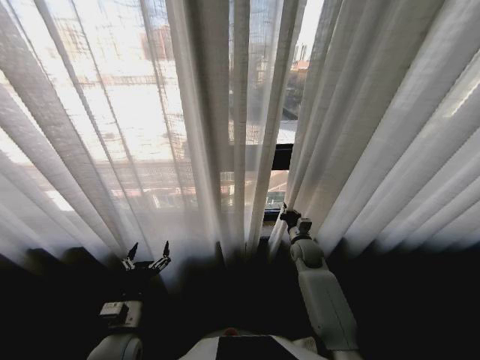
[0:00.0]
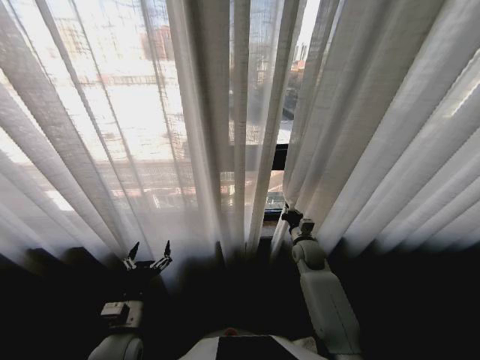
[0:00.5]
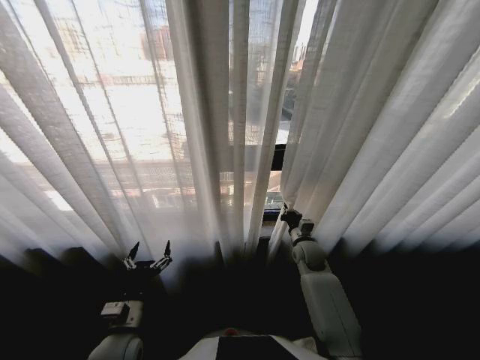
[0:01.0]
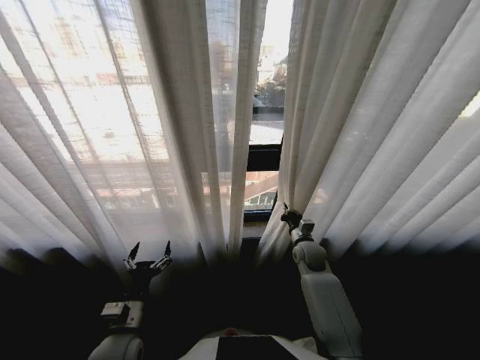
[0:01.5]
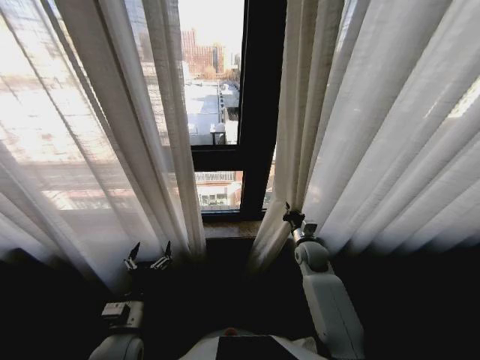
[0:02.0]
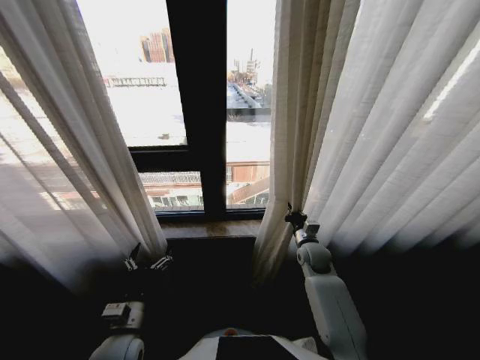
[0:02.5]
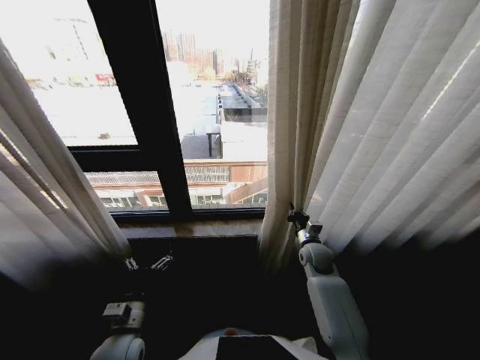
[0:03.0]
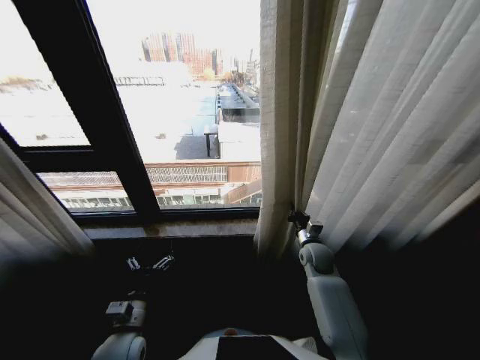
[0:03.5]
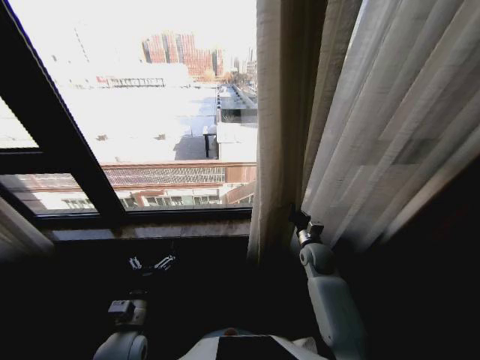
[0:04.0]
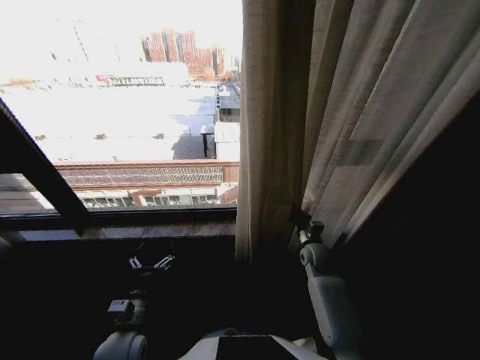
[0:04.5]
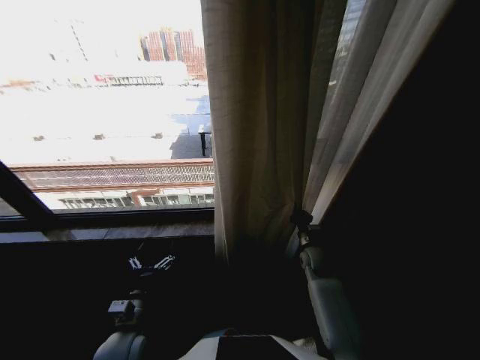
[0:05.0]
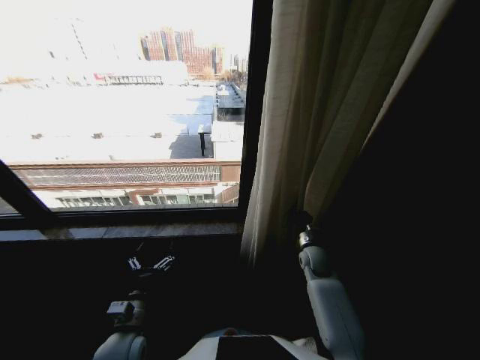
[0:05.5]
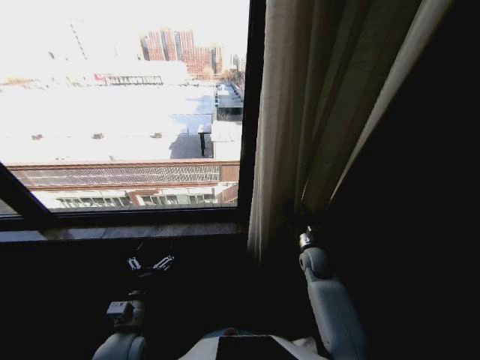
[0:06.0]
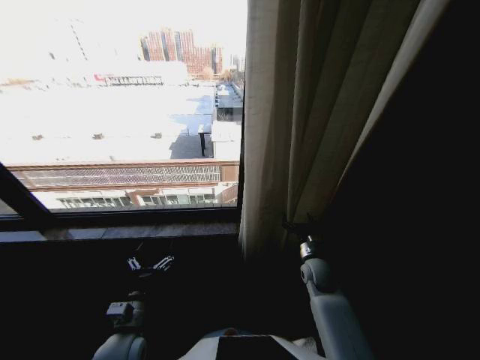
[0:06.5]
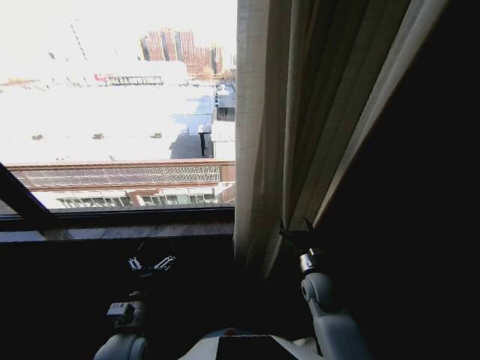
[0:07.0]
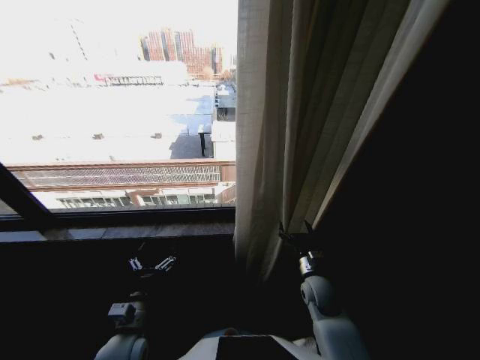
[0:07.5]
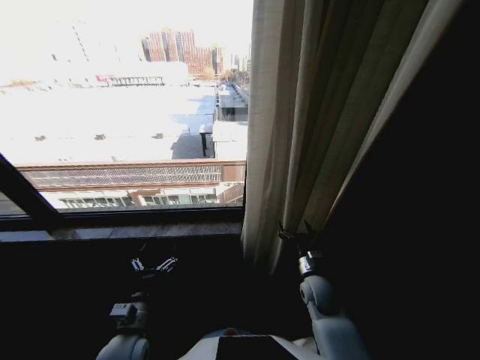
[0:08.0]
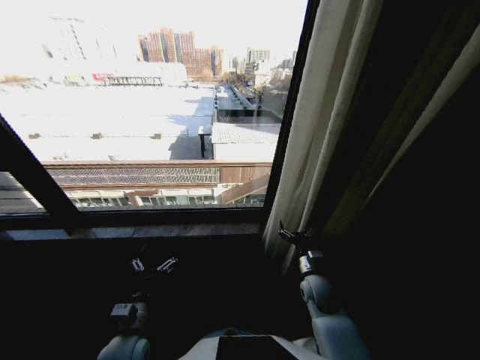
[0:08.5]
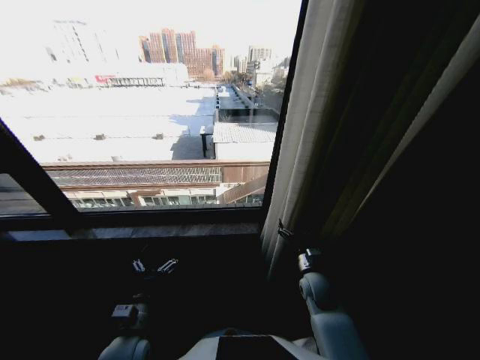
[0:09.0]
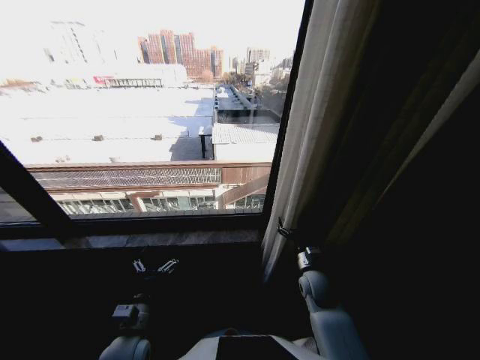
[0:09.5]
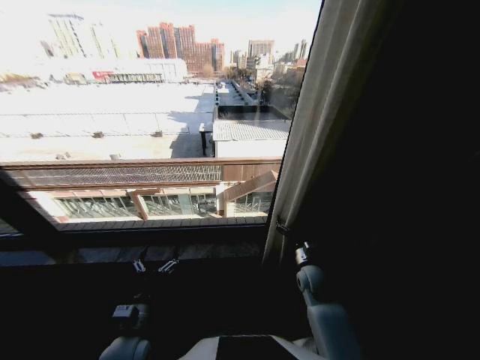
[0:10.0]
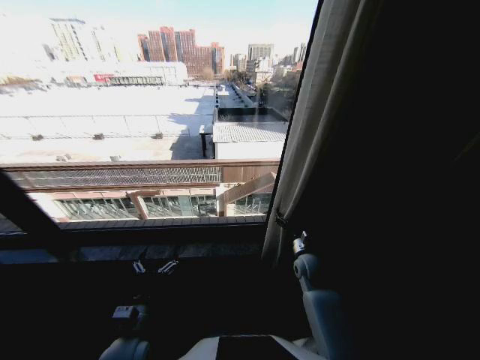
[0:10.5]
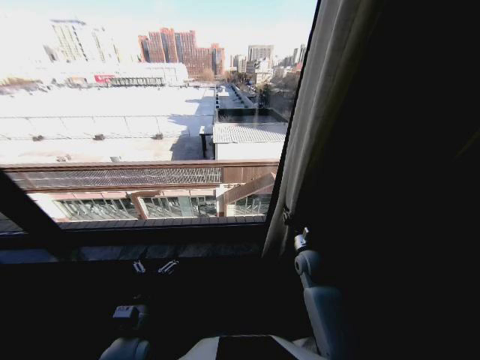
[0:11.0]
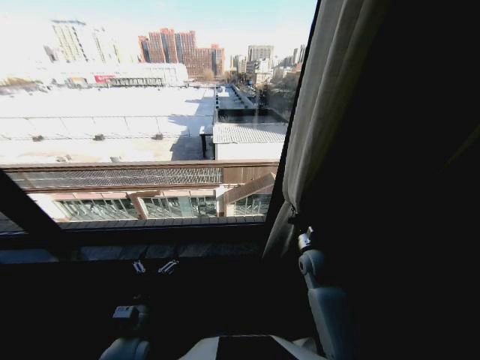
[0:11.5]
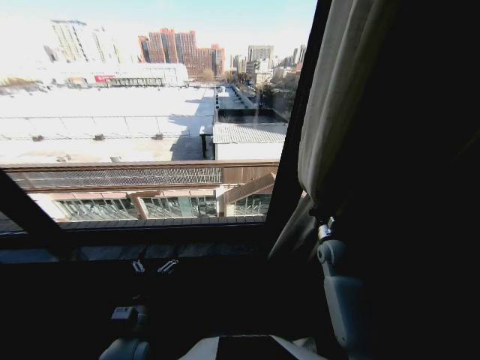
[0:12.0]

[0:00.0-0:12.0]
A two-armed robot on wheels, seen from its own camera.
Task of the whole recording: Open the curtains by pulling them apart, changing their state from closed to fully open.
0:04.0 to 0:06.0: The right gripper opens its fingers.
0:06.0 to 0:08.0: The right gripper travels backward by about 10 cm, and opens its fingers.
0:10.0 to 0:12.0: The right gripper travels to the right, forward and upward by about 10 cm, and closes.

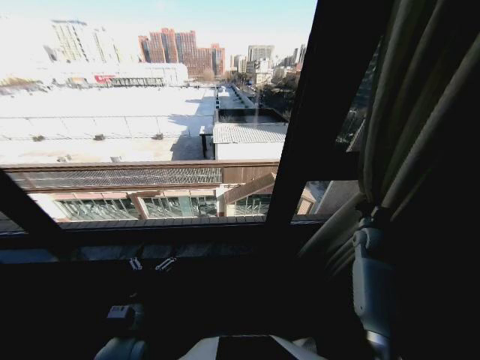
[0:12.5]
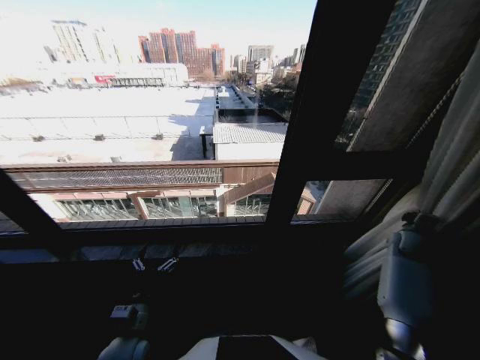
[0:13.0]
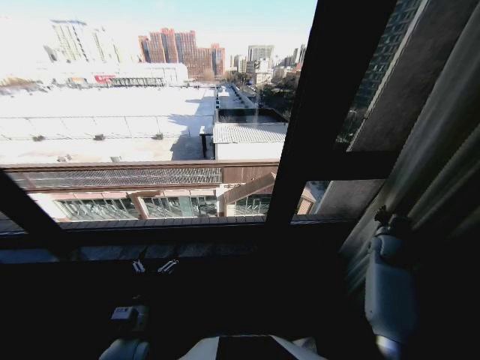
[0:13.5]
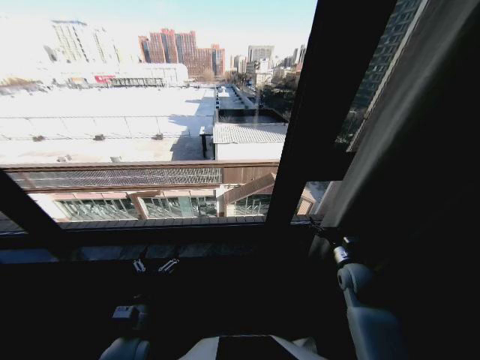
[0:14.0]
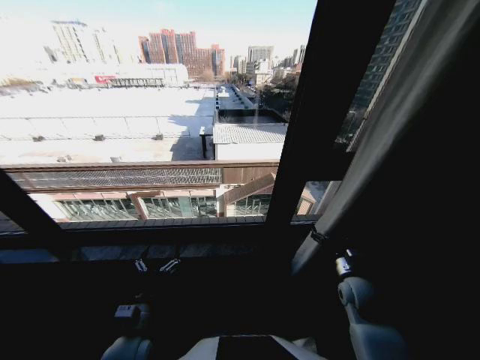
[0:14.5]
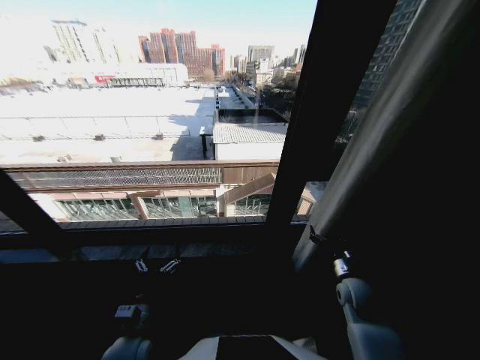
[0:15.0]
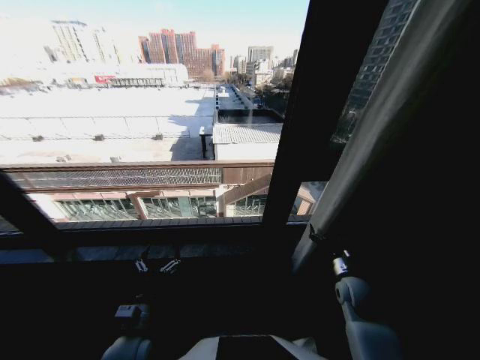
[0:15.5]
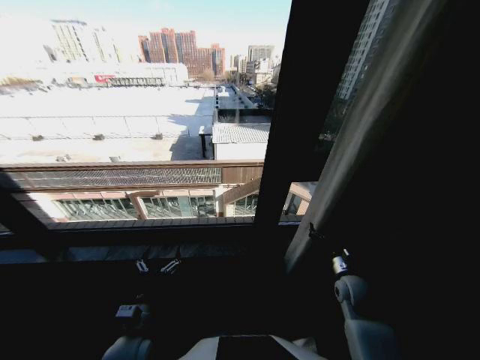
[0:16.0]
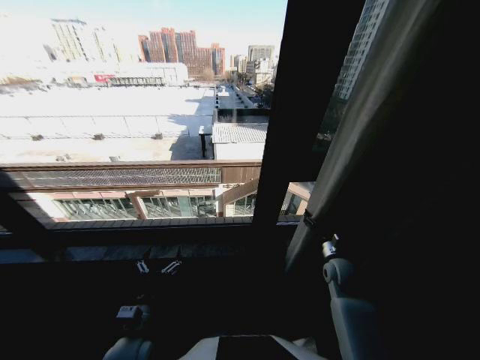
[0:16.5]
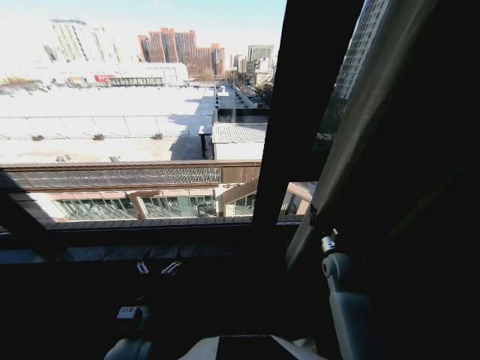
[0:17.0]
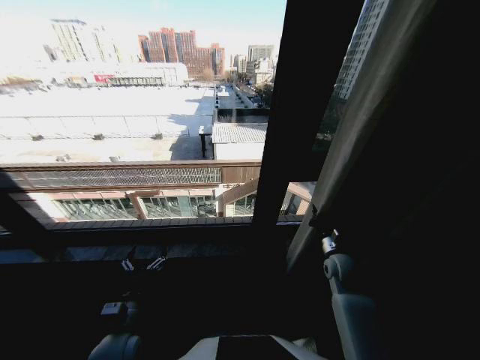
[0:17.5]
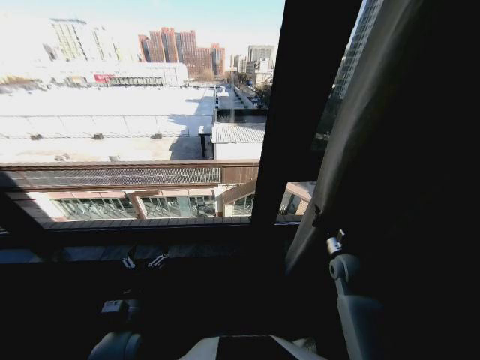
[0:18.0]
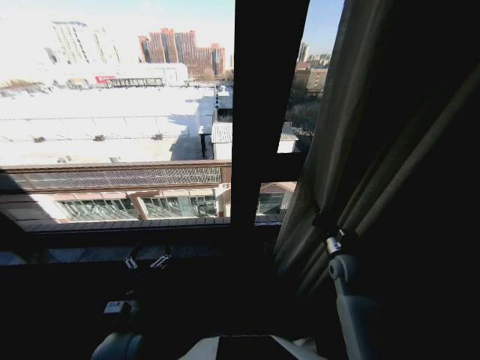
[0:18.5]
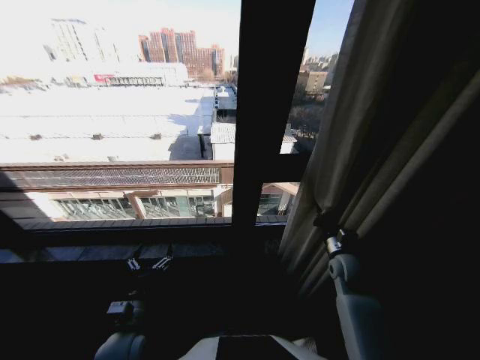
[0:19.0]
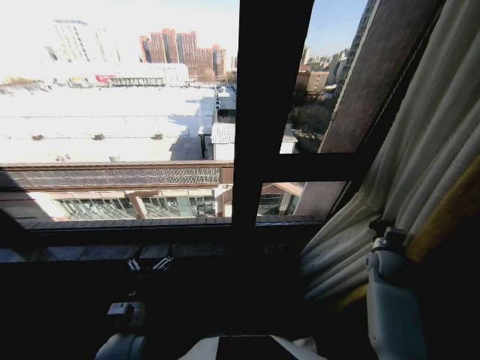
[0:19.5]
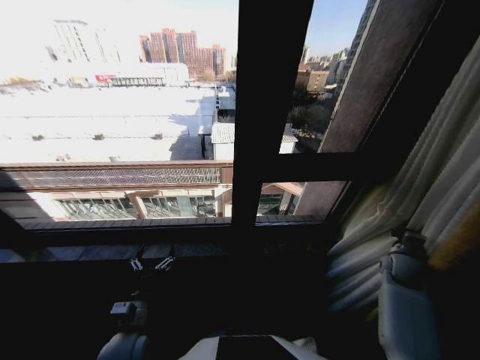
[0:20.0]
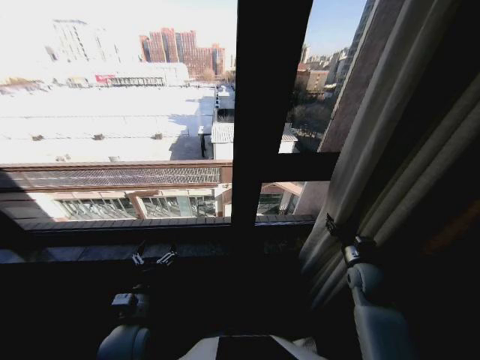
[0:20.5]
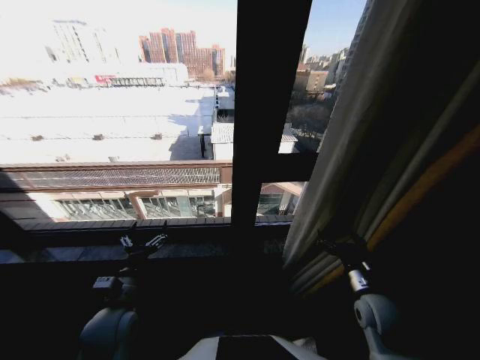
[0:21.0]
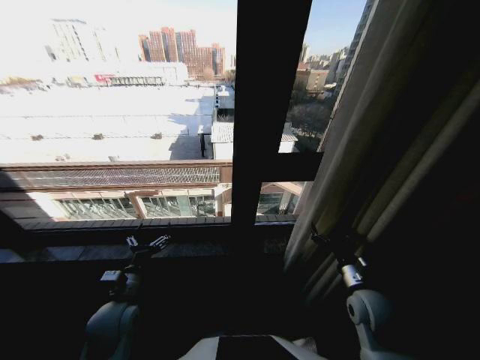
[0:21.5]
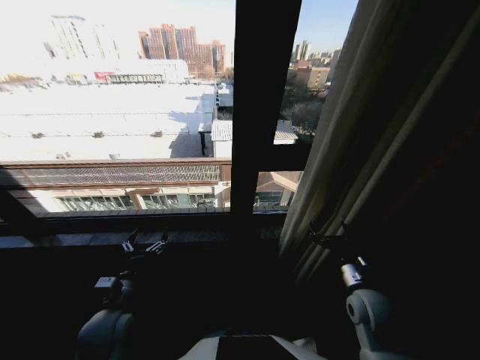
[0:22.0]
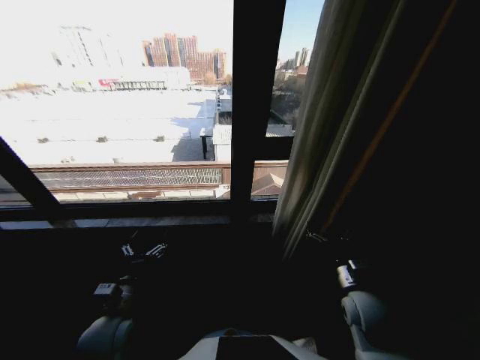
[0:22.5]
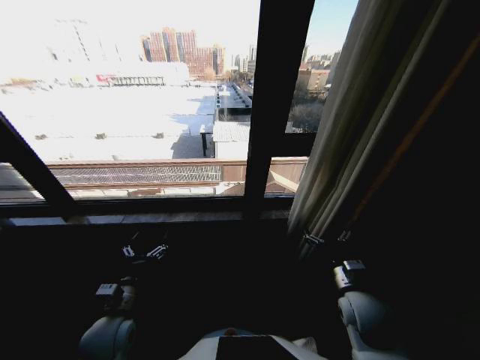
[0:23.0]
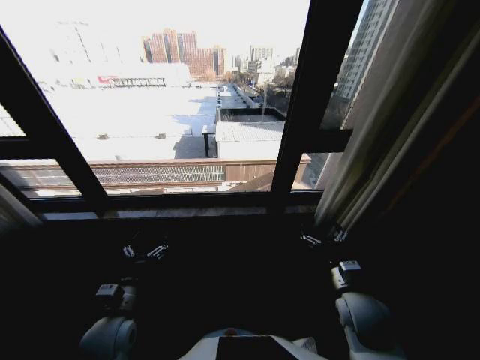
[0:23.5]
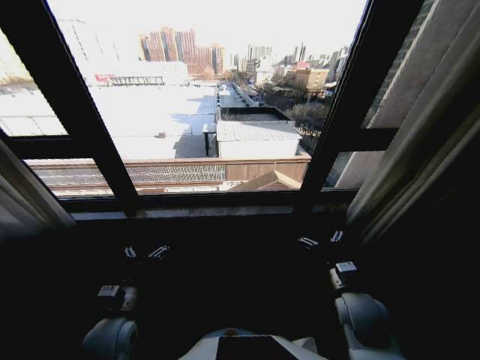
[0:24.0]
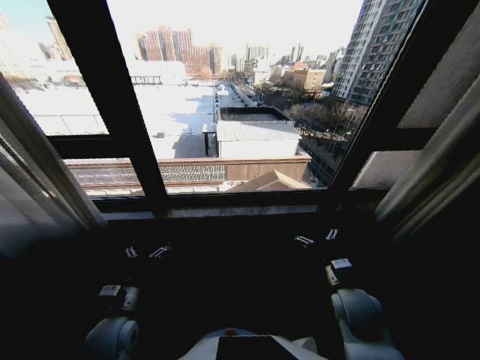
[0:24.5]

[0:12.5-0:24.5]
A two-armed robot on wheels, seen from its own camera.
Task of the whole recording: Open the curtains by pulling them apart, changing their state from closed to fully open.
0:12.5 to 0:14.5: The right gripper travels backward and to the left by about 20 cm, and opens.
0:14.5 to 0:16.5: The right gripper is displaced forward by about 5 cm.
0:16.5 to 0:18.5: The right gripper closes up.
0:18.5 to 0:20.5: The right gripper goes to the right and returns, approximately 20 cm each way, and opens its fingers.
0:20.5 to 0:22.5: The right gripper is displaced backward and to the left by some 10 cm, and opens.

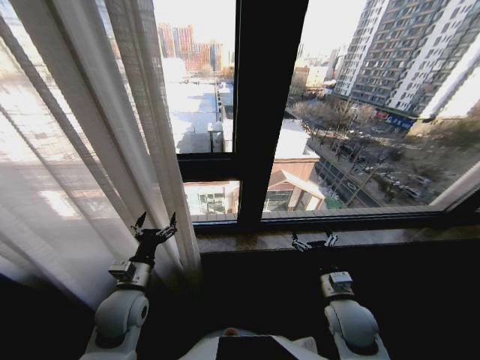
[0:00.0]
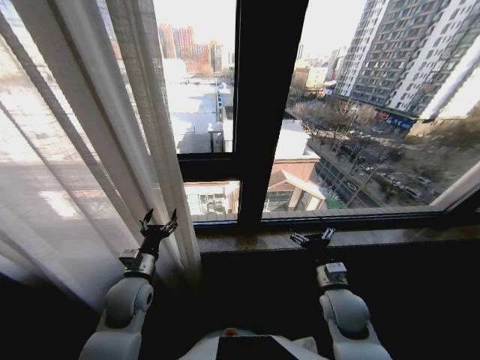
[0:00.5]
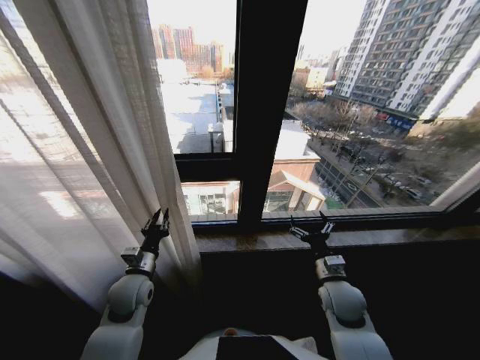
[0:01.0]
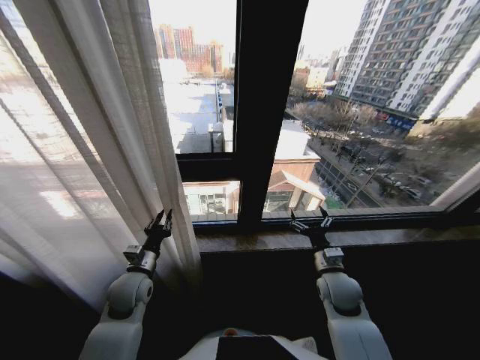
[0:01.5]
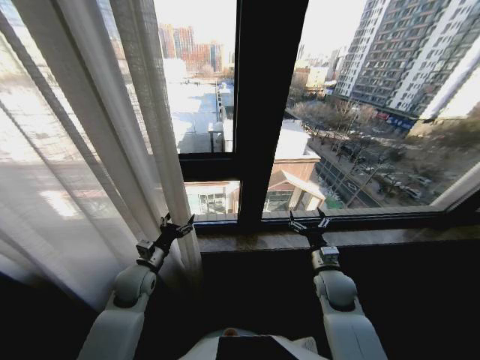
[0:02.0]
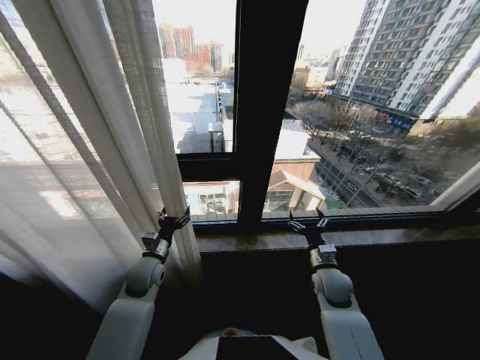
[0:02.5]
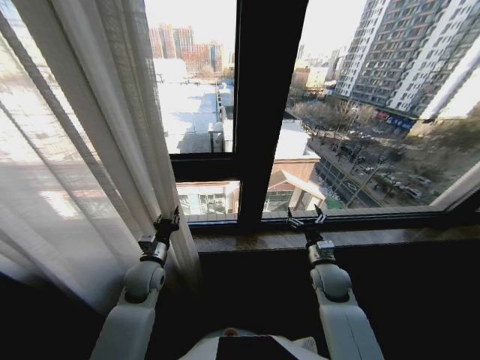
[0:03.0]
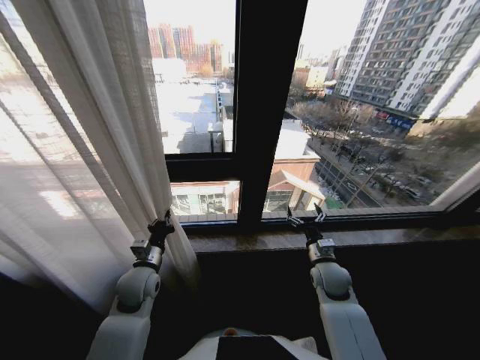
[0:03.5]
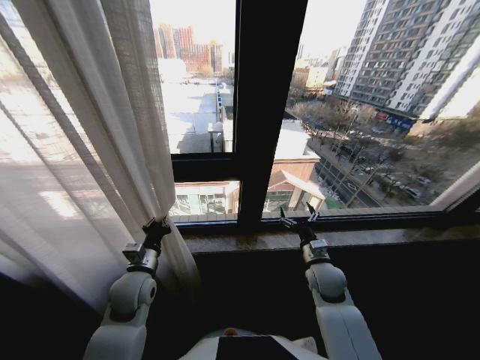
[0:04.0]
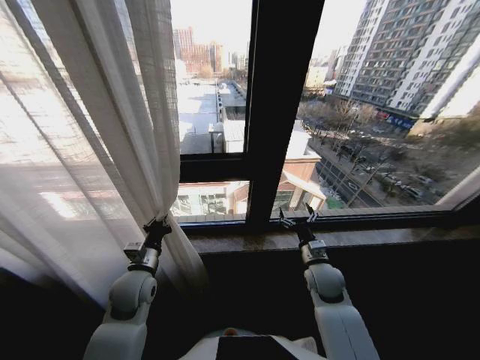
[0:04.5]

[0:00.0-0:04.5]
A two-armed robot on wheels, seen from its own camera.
Task of the whole recording: Open the curtains by pulling them apart, changing their state from closed to fully open.
0:00.0 to 0:02.0: Both grippers move forward, approximately 5 cm. The left gripper closes, then reopens.
0:02.0 to 0:04.5: The left gripper closes up.
